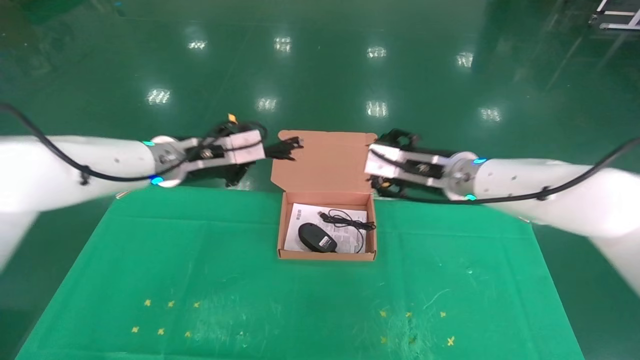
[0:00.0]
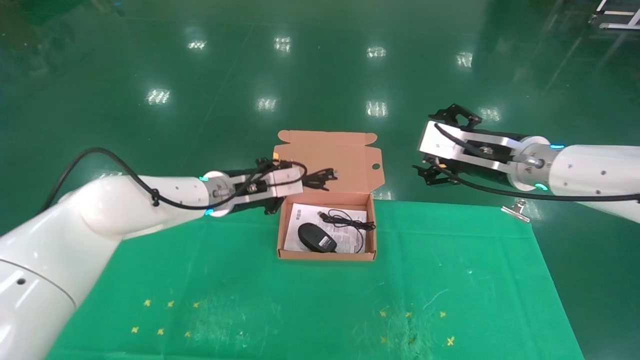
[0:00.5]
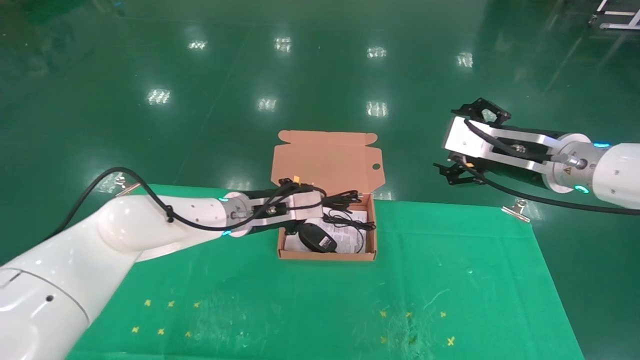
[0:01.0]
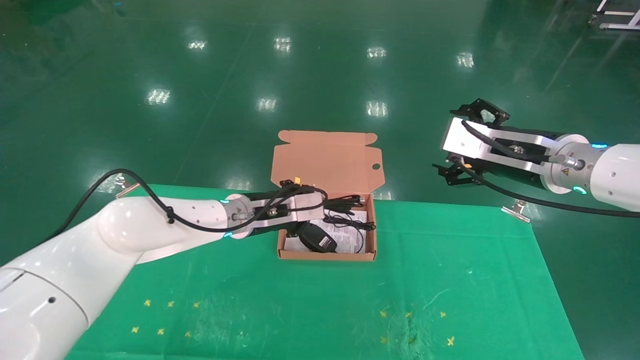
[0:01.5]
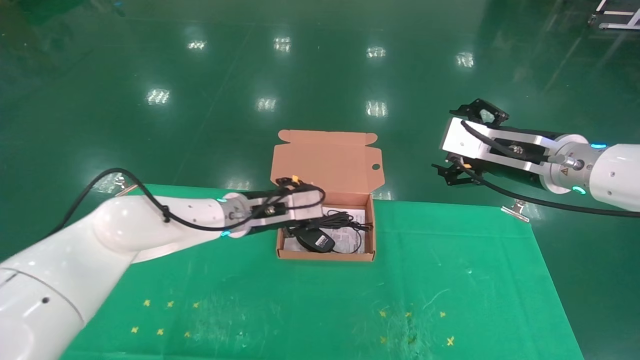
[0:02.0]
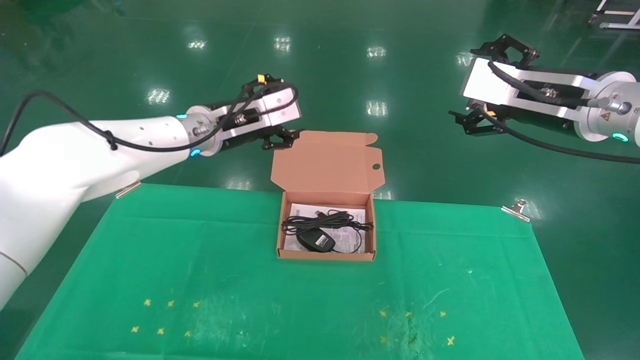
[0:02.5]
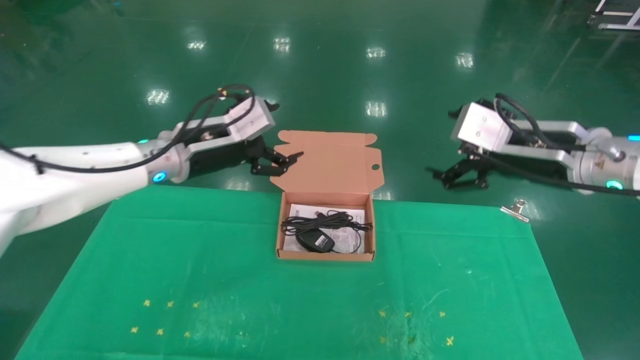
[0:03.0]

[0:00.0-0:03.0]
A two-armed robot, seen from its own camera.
Task of the whole recording: grasp data cable left put into box grasp mouse right put into box.
0:00.0 to 0:01.5: The left gripper moves downward and to the right, about 15 cm, while the right gripper goes roughly 10 cm to the right and backward, and opens.
0:01.5 to 0:03.0: The left gripper heads upward, to the left and backward, covering roughly 15 cm, and opens up.
